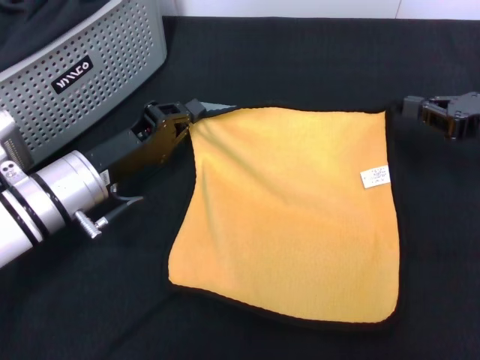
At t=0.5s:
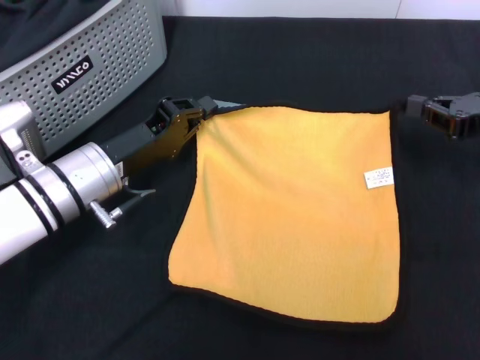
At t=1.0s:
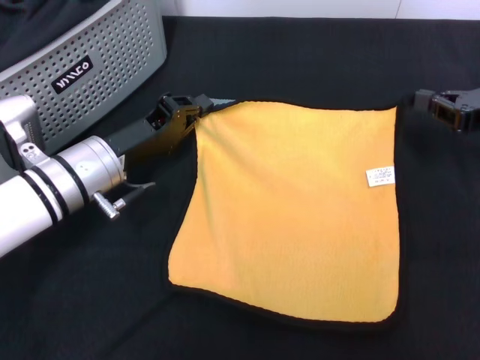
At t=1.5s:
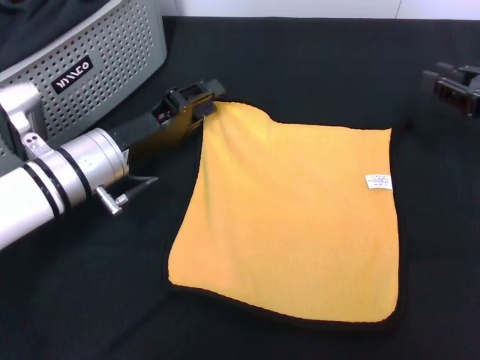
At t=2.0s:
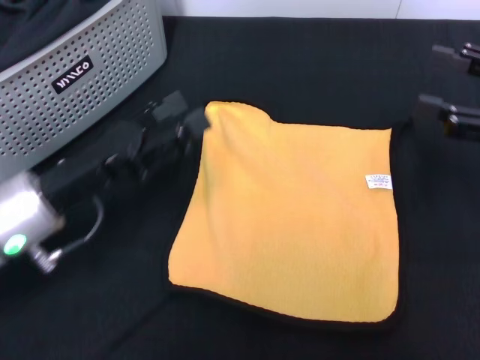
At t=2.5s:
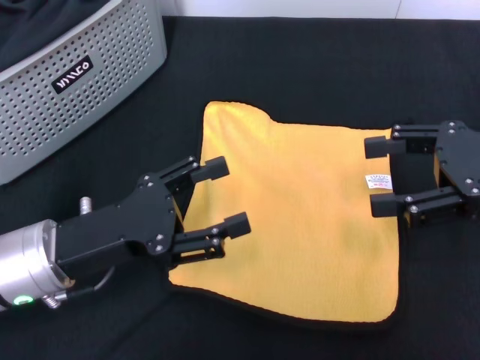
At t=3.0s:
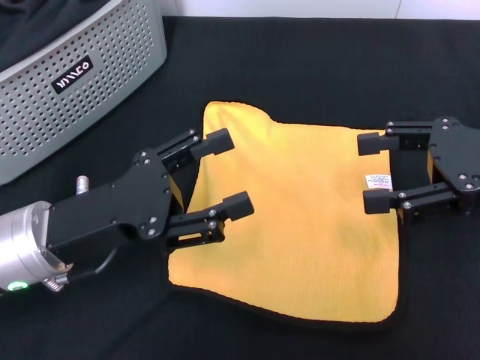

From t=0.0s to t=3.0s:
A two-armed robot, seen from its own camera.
Task of the whole recording: pick up the towel from the storage box and lay it flat on the black tablecloth.
From t=0.0s to t=1.5s: The grippers stay close to where they were, moving slightly.
From t=1.5s to t=3.0s: The left gripper travels backward by about 10 cm, and opens up. The right gripper heads upward, to the left and backward, covering roughly 10 cm, and opens up.
